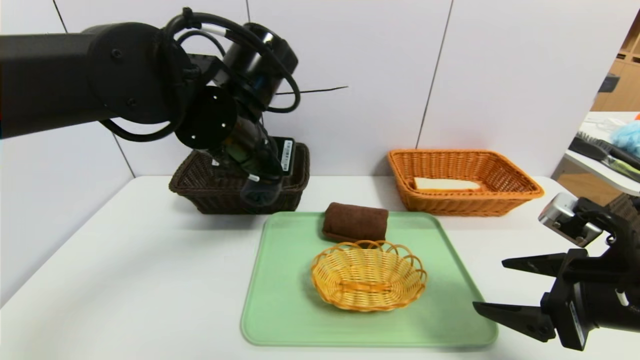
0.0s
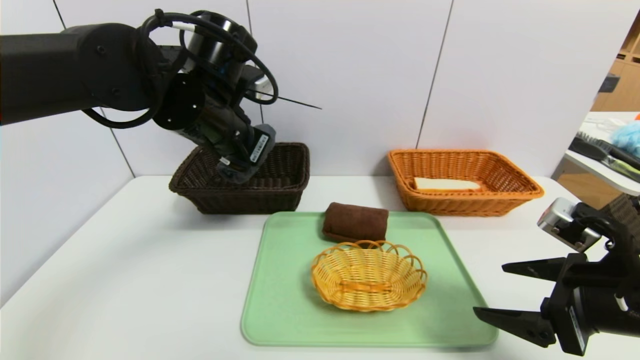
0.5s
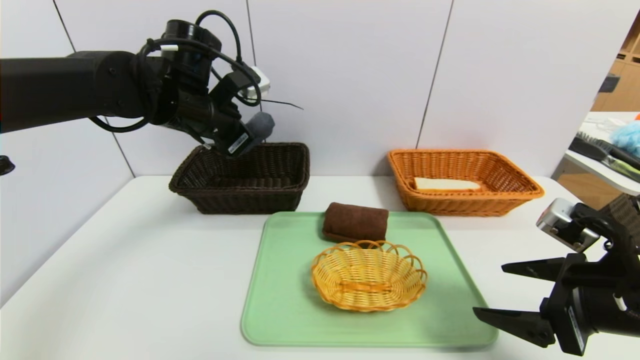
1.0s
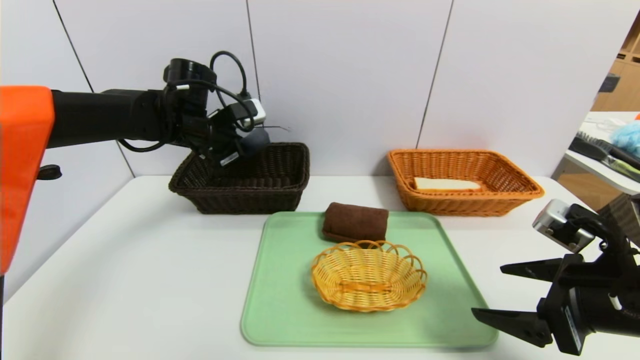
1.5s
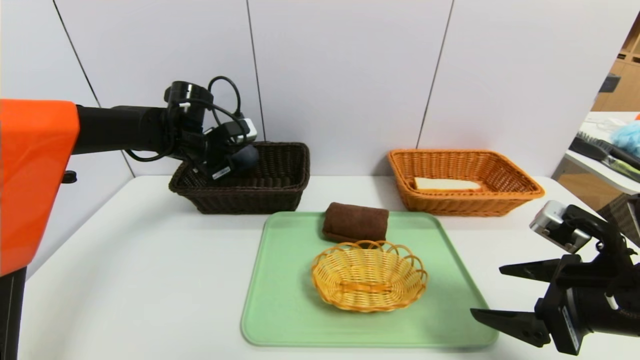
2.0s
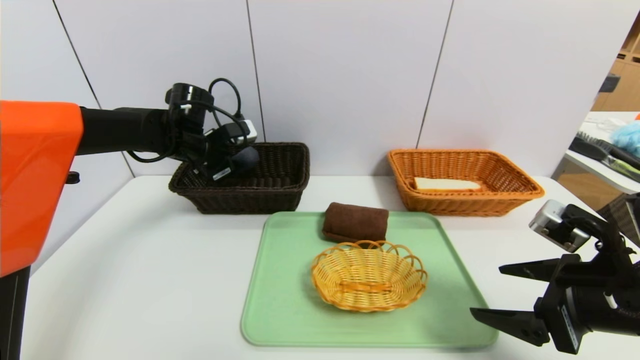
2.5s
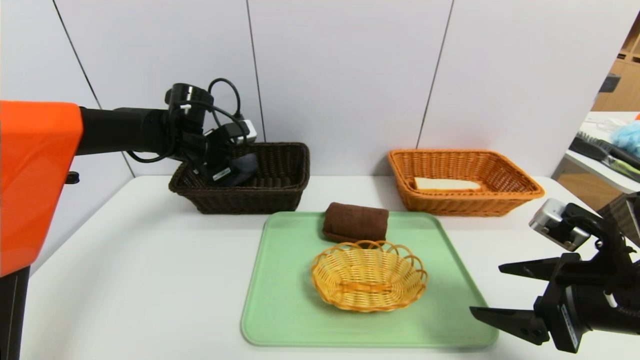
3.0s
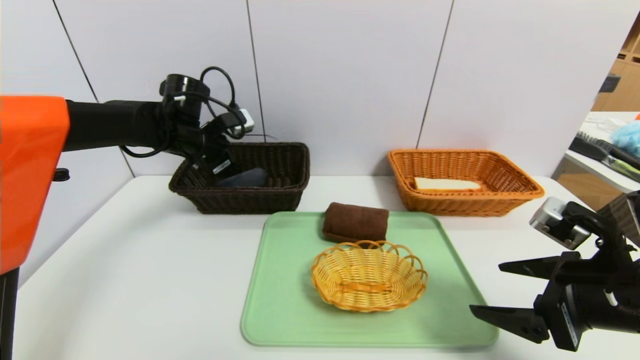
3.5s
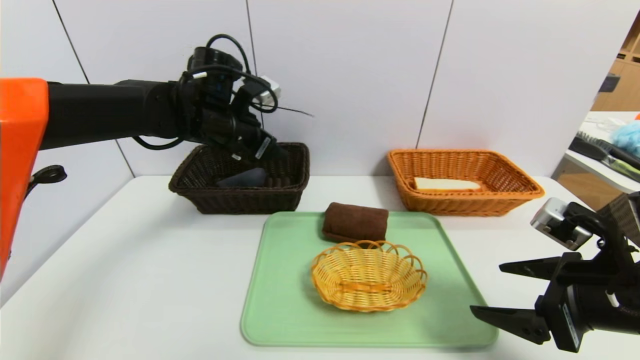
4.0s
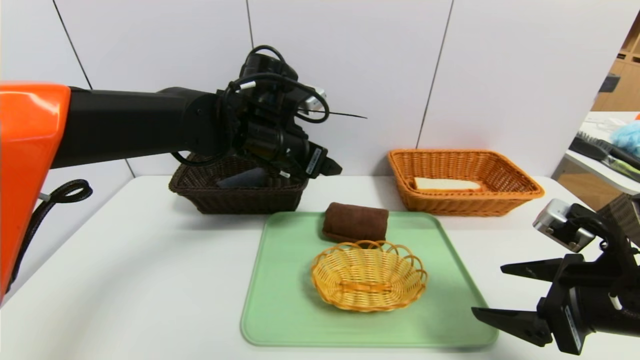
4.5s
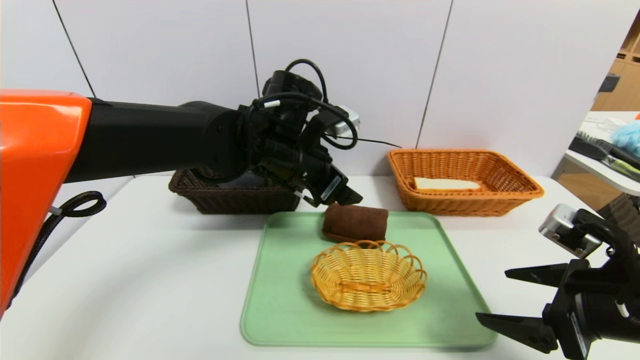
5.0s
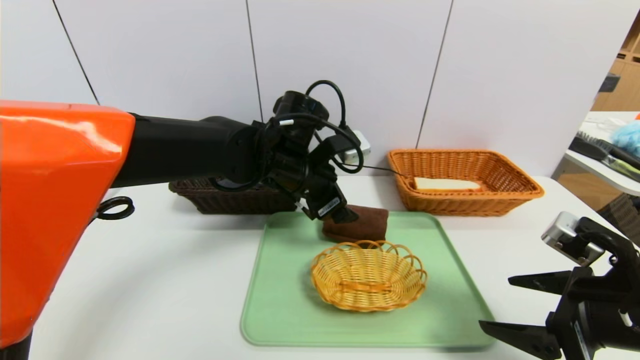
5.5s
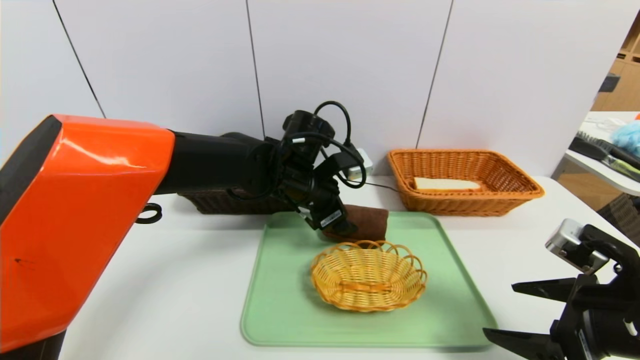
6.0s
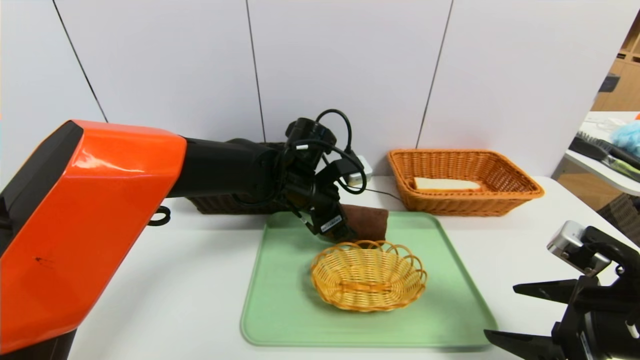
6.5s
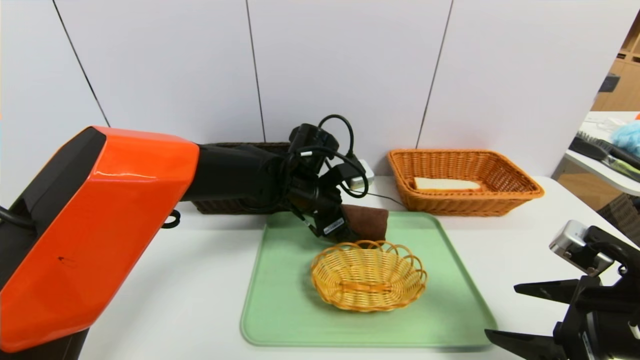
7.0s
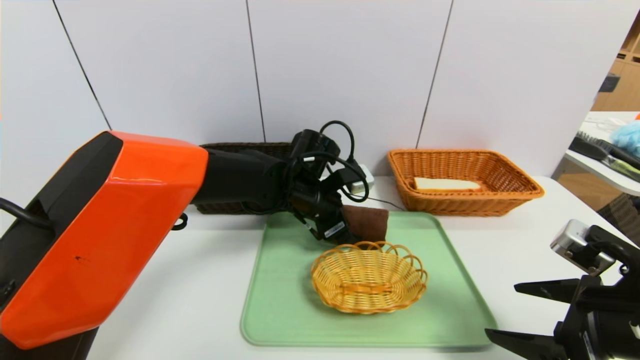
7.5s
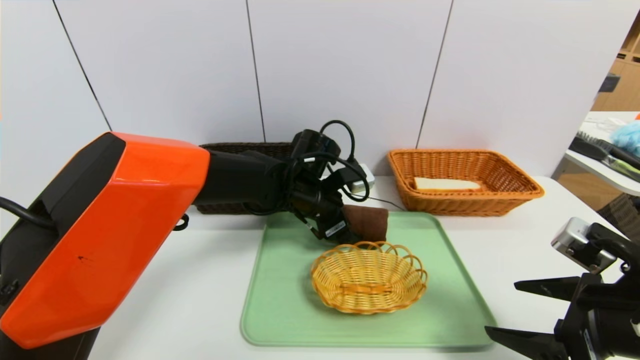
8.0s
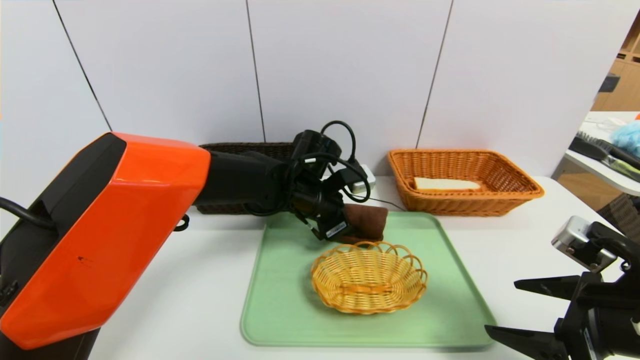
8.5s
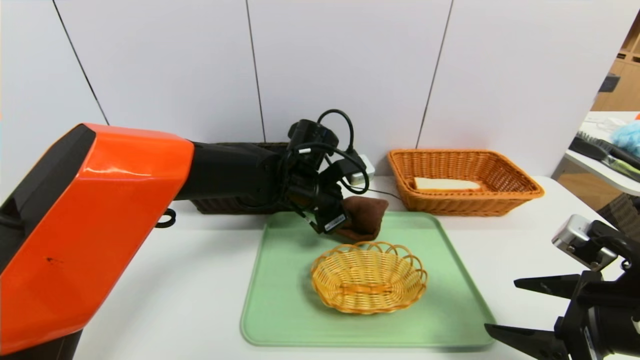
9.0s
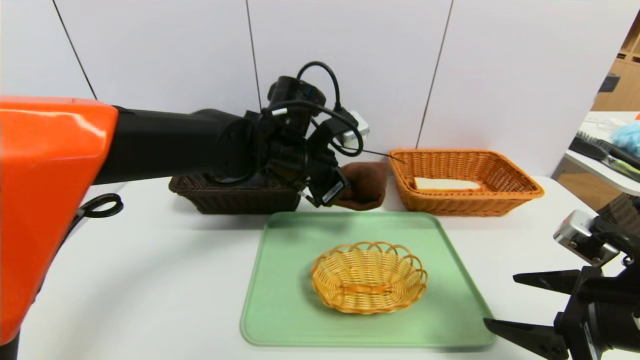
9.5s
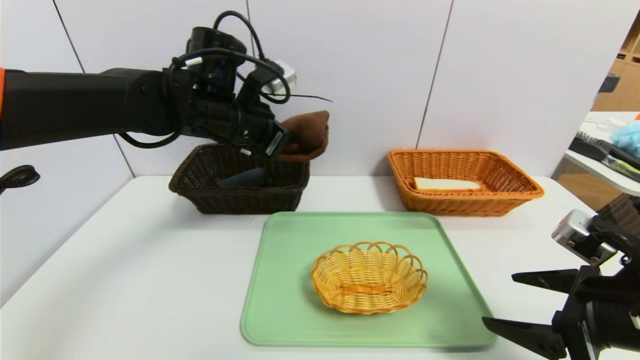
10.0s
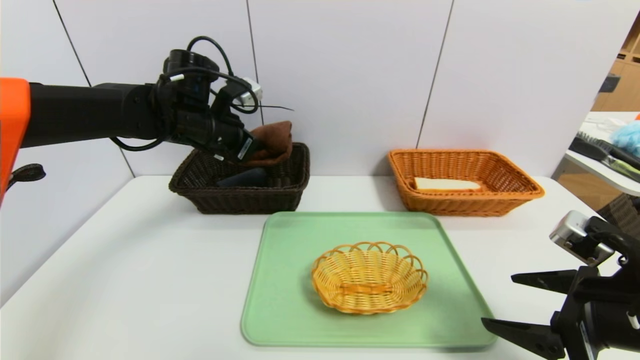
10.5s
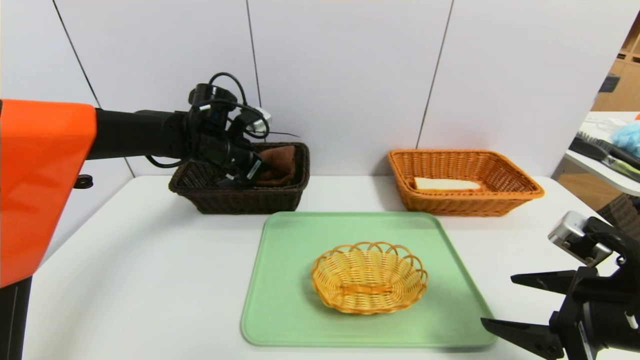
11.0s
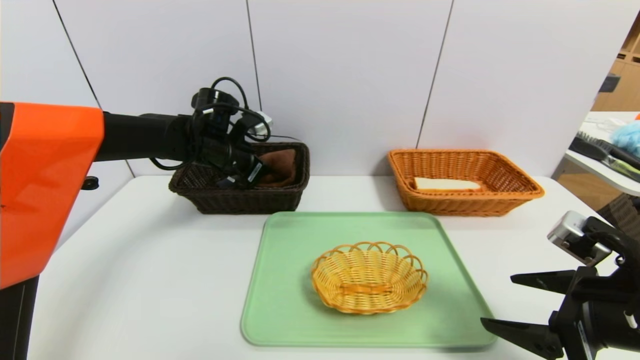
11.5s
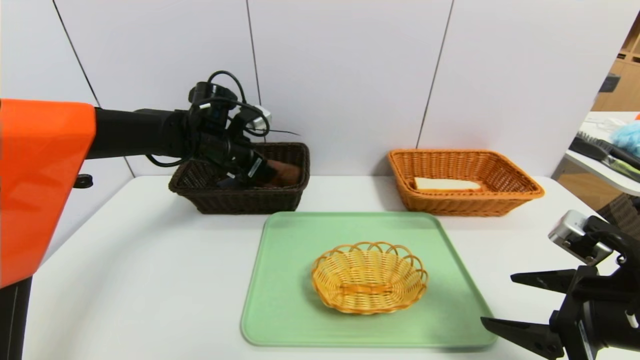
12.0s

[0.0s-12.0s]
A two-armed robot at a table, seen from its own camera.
Task of the whole recording: place the food in the right basket with the right gripper, and place the non food items in the left basket with the left gripper.
Step, 0.0s to 3.0s: Grasp the grey towel and put it in the left basket.
0.0s to 2.0s: The left gripper goes approximately 20 cm forward, to the left and downward.
2.0s to 4.0s: The left gripper moves to the right and upward, roughly 10 cm, and opens its fingers.
4.0s to 6.0s: The left gripper moves to the right and downward, some 15 cm.
6.0s to 8.0s: The grippers stay close to where they were, moving slightly.
8.0s to 10.0s: The left gripper moves upward and to the left, some 15 cm, and closes.
10.0s to 12.0s: The left gripper moves downward and forward, about 10 cm, and opens its fingers.

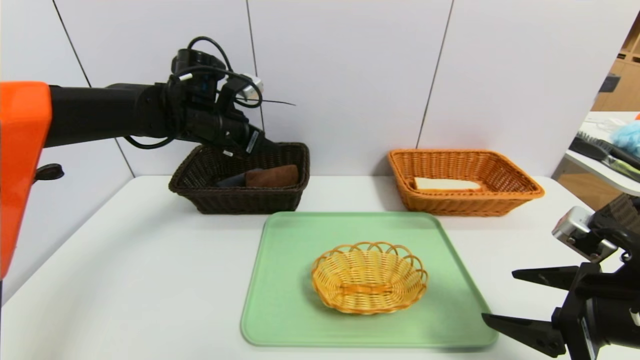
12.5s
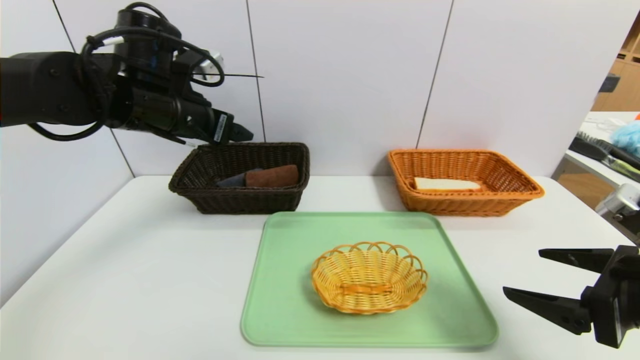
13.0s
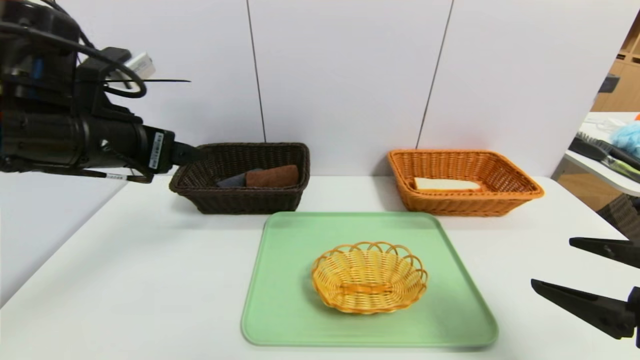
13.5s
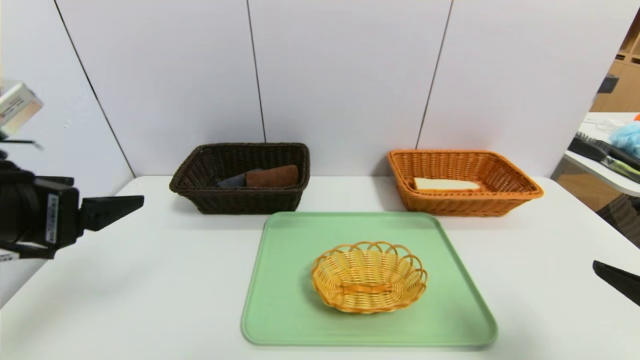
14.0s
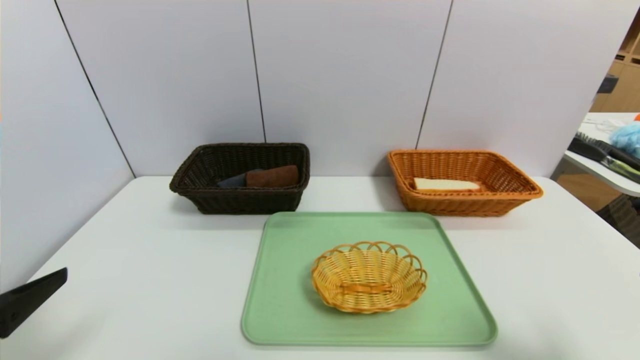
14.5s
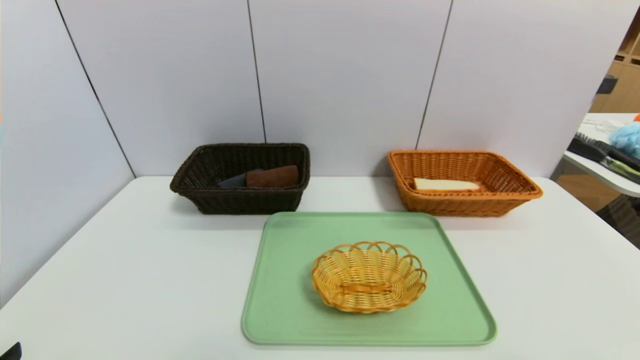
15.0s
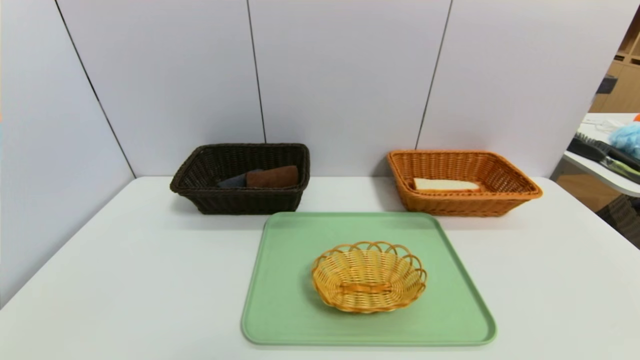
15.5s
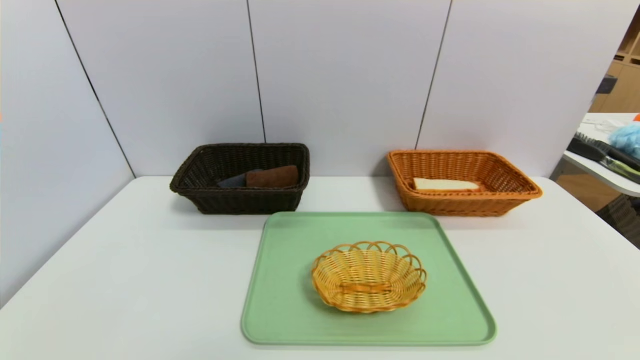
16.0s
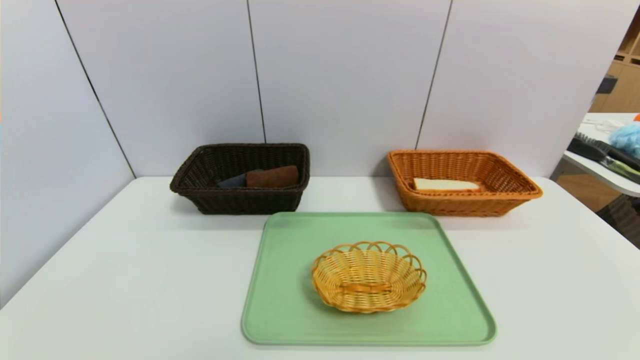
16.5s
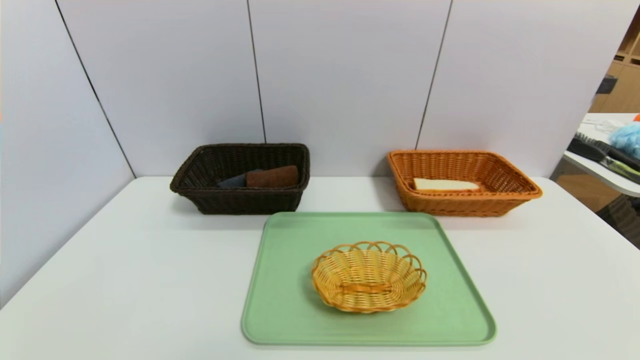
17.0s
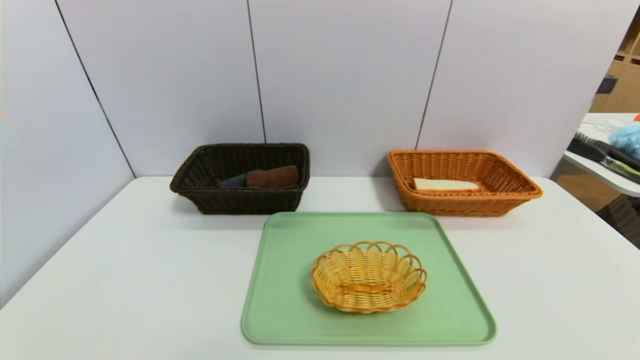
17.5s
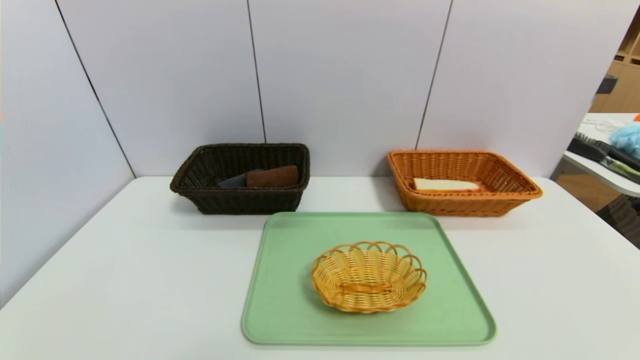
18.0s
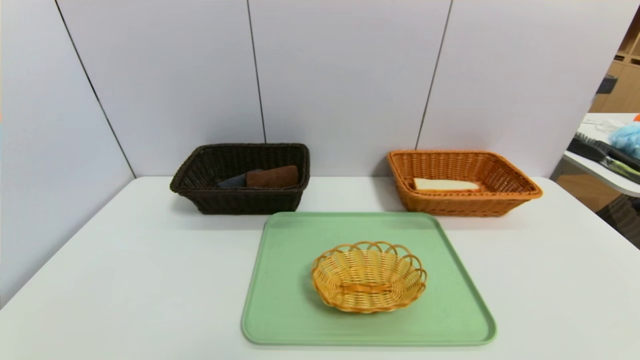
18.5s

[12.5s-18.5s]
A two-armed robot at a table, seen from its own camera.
Task of the whole recording: place the food in the right basket with the right gripper, and place the non food items in the left basket with the left gripper.
12.5s to 14.5s: The right gripper shifts about 10 cm backward, while the left gripper moves backward, about 35 cm.
14.5s to 16.5s: The right gripper heads backward, covering approximately 10 cm; the left gripper is displaced downward and backward by about 15 cm.

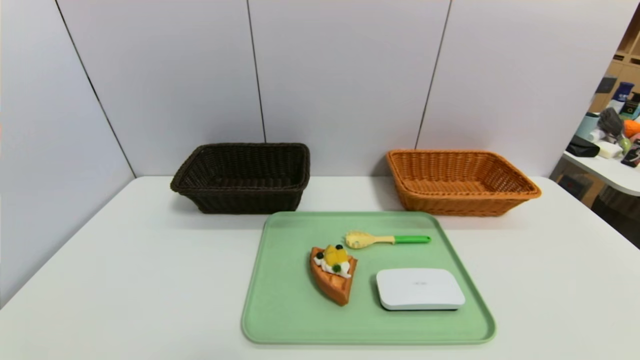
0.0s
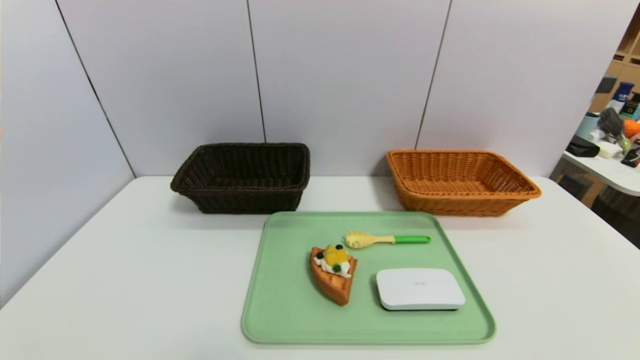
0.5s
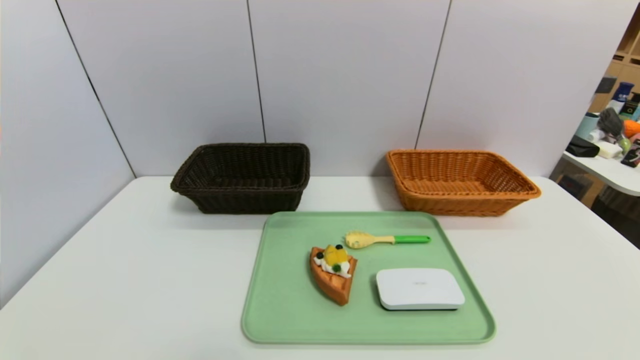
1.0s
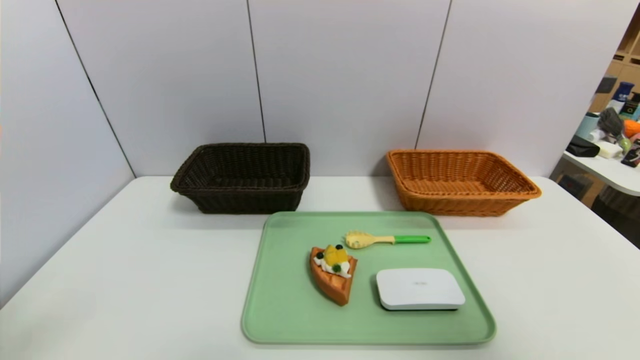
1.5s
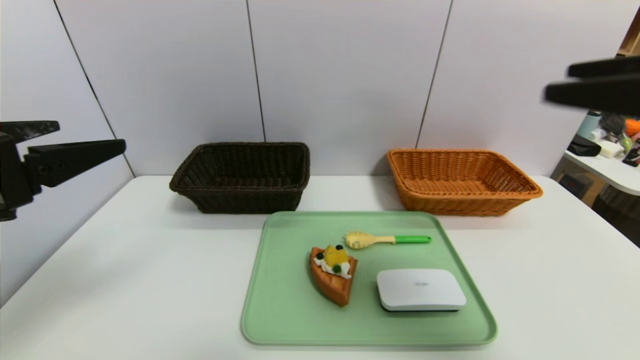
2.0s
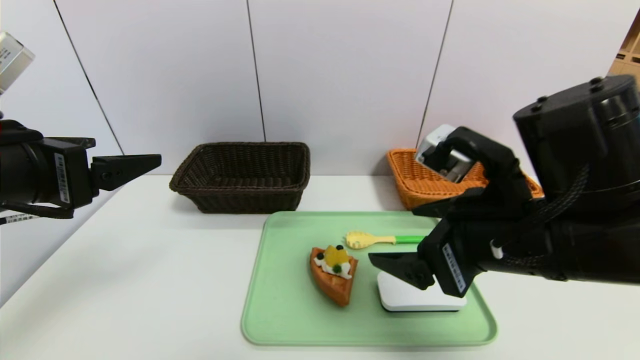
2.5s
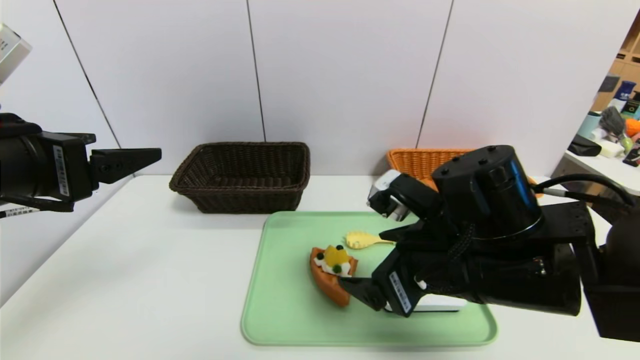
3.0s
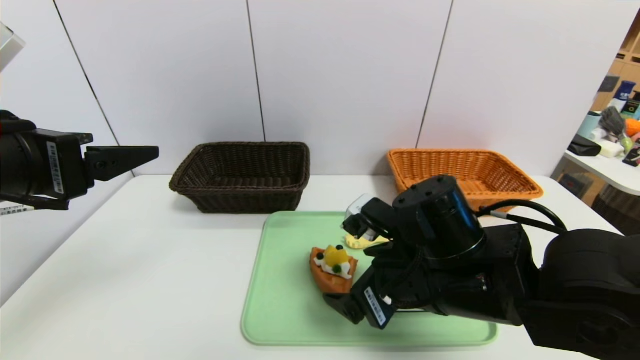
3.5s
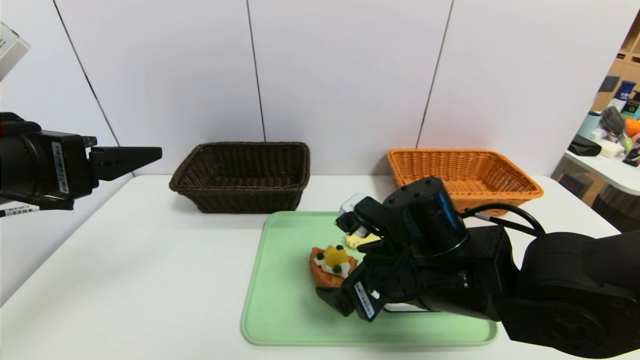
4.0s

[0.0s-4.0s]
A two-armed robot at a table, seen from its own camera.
Task of the whole recording: place the food in the right basket with the right gripper, and place the non food items in the left basket with the left gripper.
0.0s to 2.0s: Both grippers travel together upward and forward, approximately 30 cm.
2.0s to 4.0s: The right gripper goes roughly 25 cm downward, to the left and forward.
